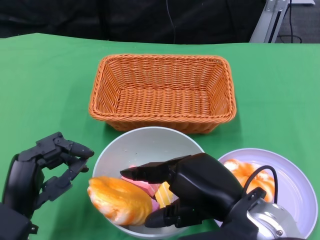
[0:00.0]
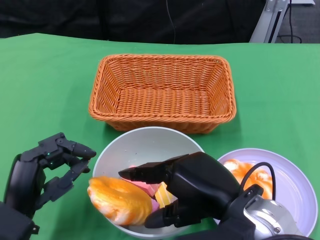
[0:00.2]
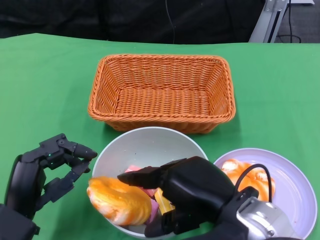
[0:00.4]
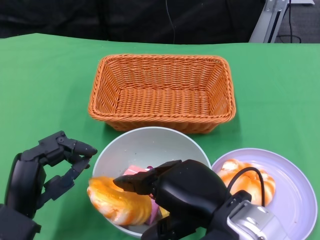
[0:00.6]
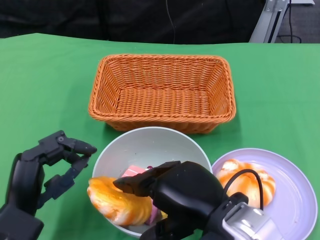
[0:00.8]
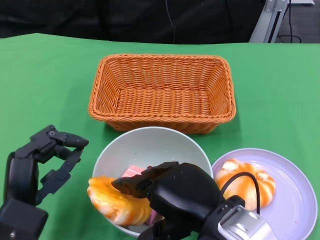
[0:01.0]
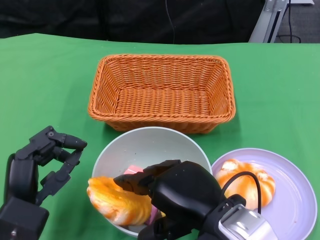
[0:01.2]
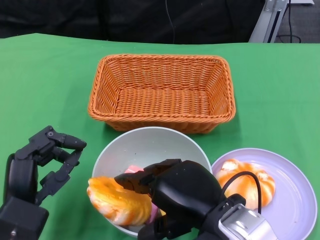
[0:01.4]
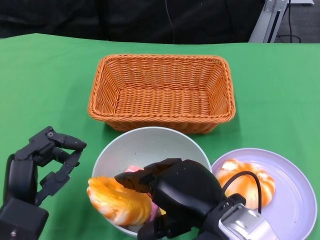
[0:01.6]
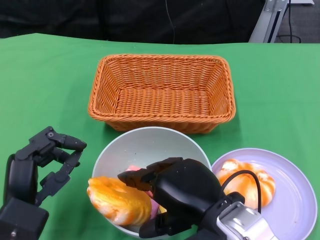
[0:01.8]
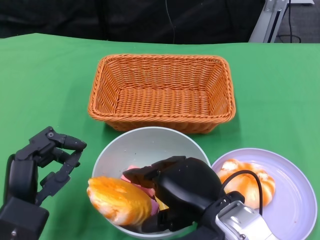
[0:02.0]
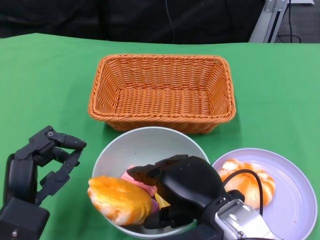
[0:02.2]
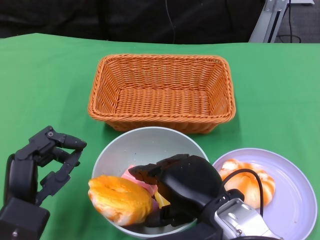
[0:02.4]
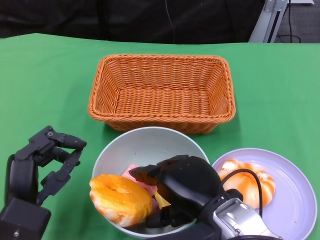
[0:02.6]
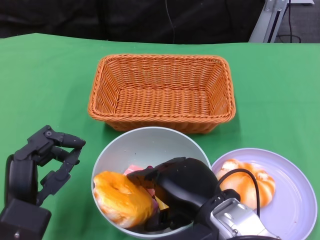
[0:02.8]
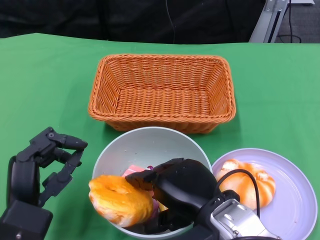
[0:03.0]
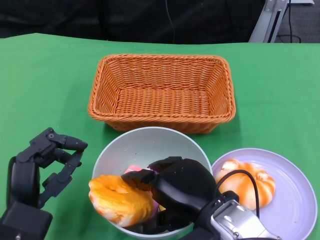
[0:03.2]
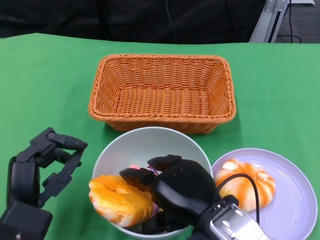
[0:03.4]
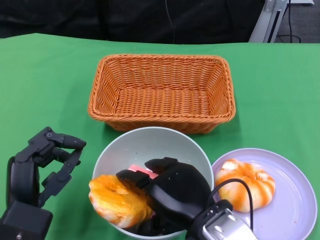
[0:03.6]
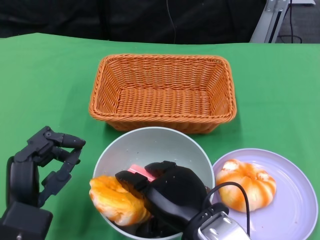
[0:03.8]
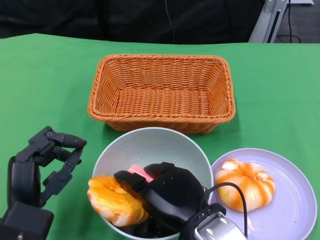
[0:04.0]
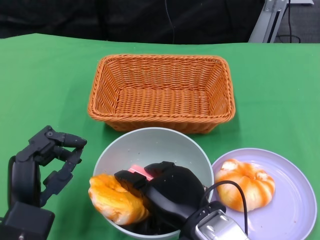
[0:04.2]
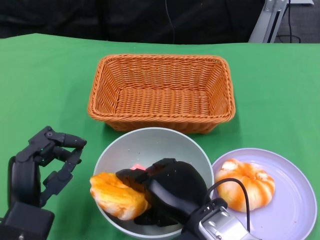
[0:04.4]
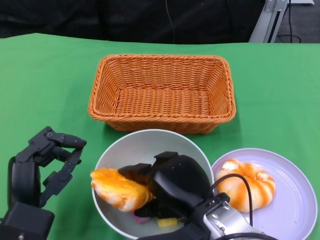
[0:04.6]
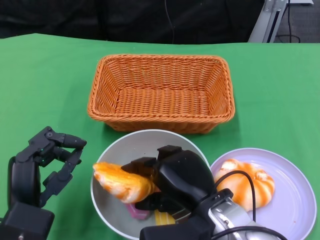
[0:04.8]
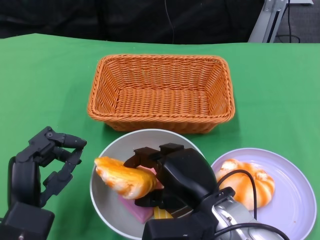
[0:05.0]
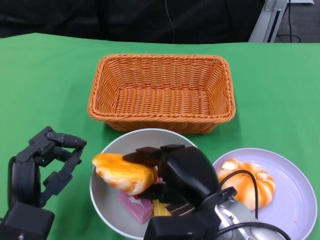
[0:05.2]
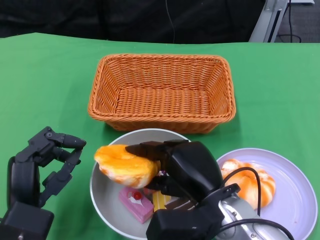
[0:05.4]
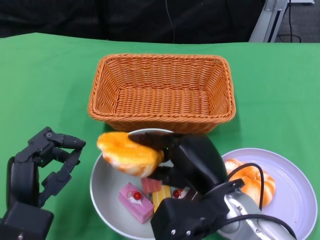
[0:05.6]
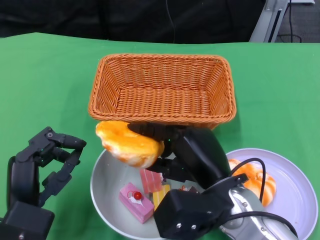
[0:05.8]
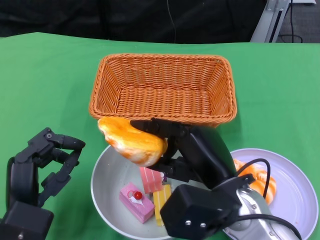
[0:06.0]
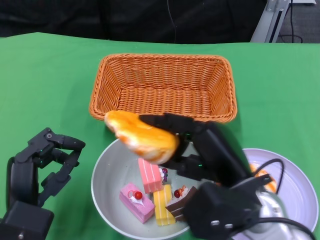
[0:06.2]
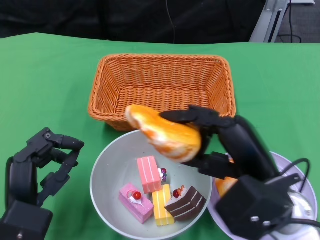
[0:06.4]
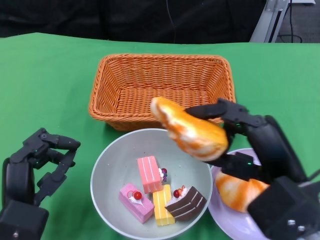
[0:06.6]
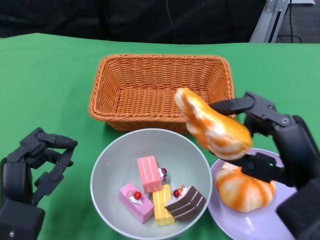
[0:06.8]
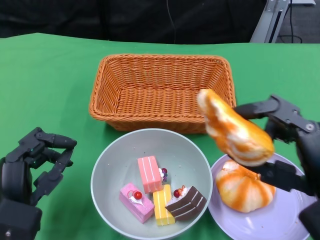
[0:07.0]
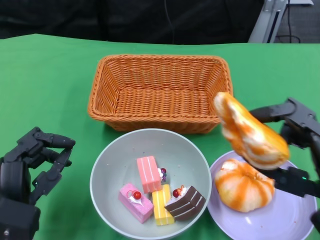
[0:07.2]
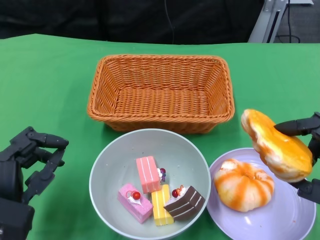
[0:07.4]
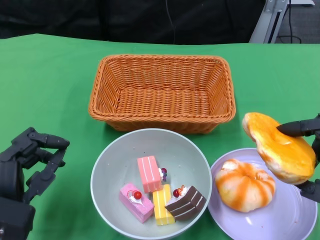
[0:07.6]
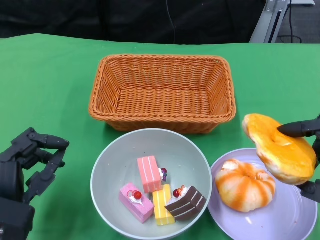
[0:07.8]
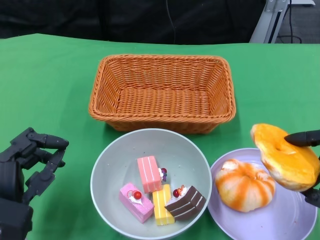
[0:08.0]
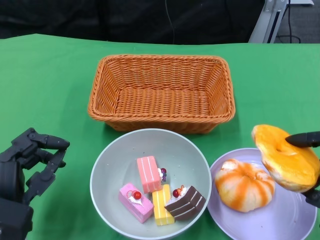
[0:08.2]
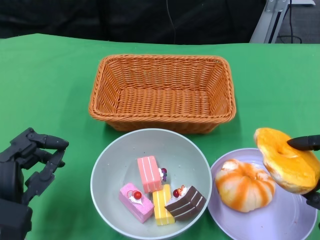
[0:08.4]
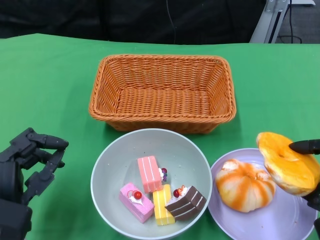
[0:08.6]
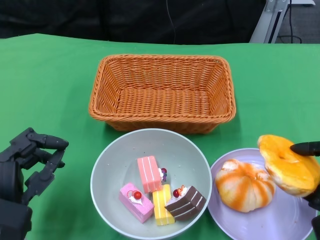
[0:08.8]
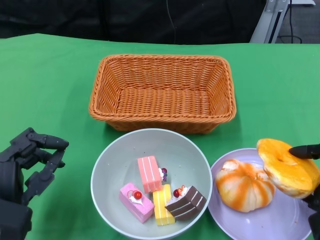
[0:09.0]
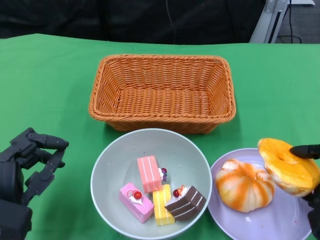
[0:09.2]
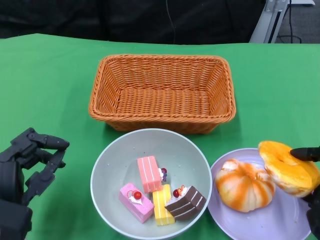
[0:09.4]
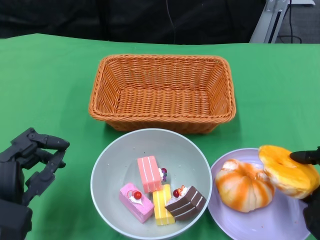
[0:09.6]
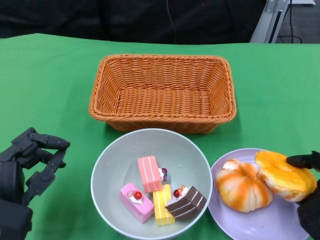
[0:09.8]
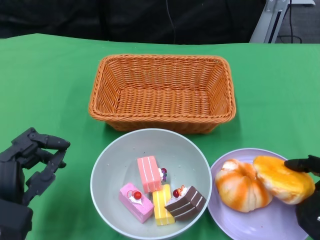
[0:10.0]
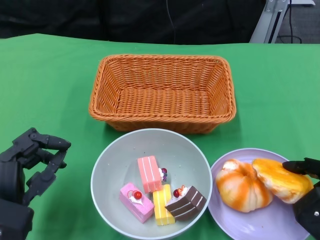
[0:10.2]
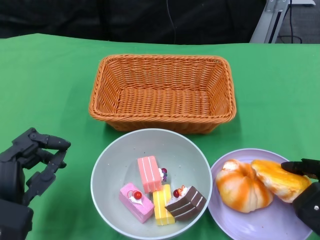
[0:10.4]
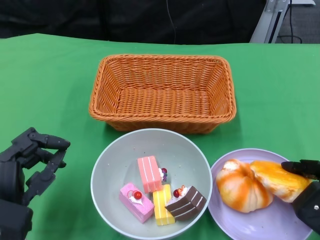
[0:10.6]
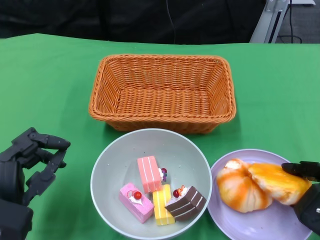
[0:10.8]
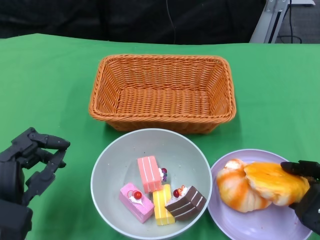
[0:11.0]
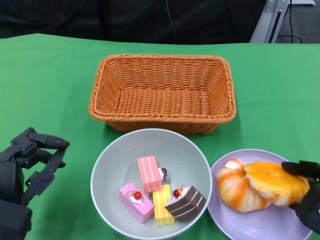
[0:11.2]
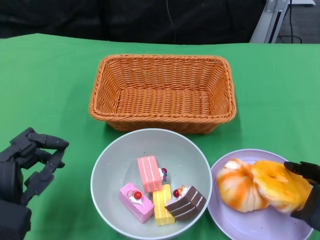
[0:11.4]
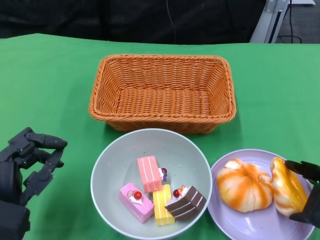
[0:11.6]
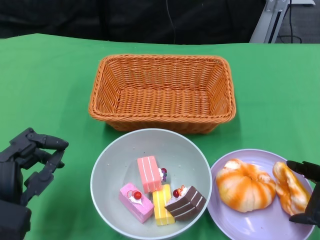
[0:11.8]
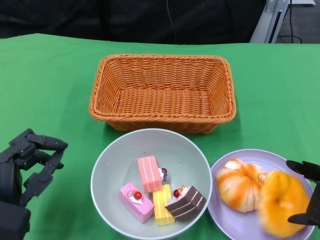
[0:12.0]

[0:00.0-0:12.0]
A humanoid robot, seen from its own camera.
0:00.0 to 0:01.6: The hands move only a little.
0:01.6 to 0:04.4: There are only small adjustments of the hands.
0:06.0 to 0:07.6: The right hand shifts approximately 15 cm to the right and backward.
0:07.6 to 0:09.0: The right hand heads downward, covering roughly 5 cm.
0:09.0 to 0:10.4: The hands move only a little.
0:10.4 to 0:12.0: The right hand travels upward by approximately 5 cm.

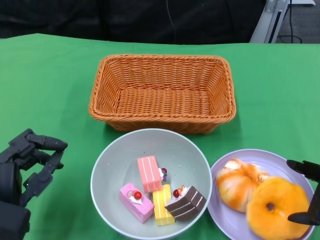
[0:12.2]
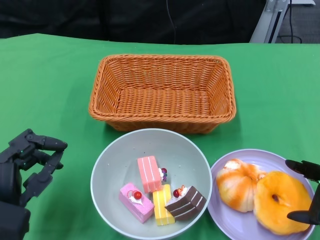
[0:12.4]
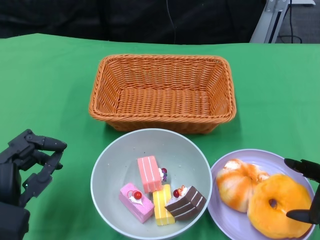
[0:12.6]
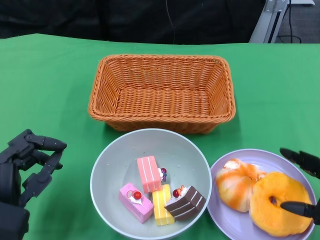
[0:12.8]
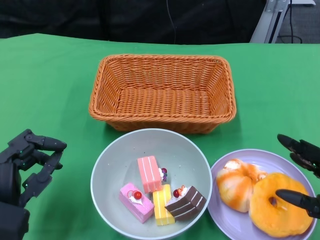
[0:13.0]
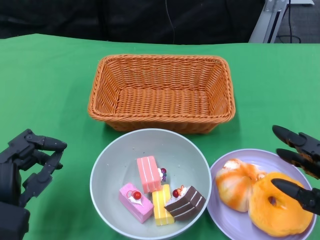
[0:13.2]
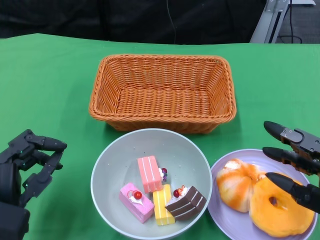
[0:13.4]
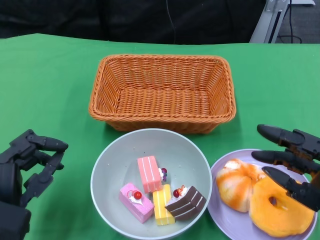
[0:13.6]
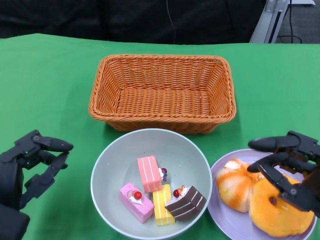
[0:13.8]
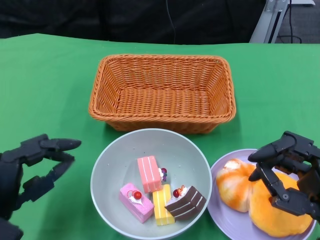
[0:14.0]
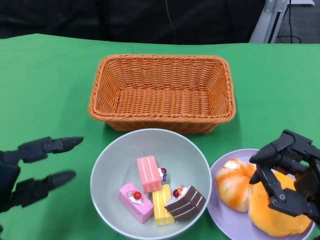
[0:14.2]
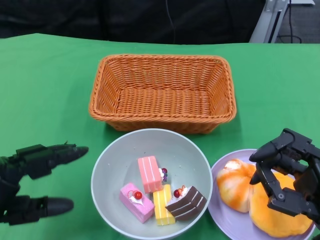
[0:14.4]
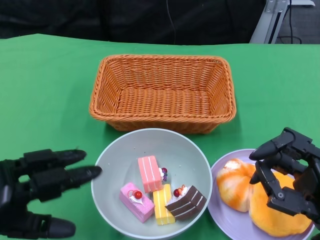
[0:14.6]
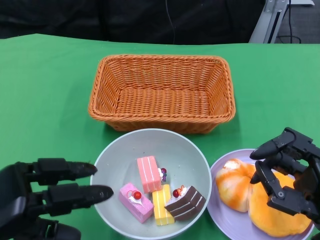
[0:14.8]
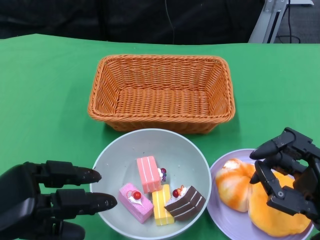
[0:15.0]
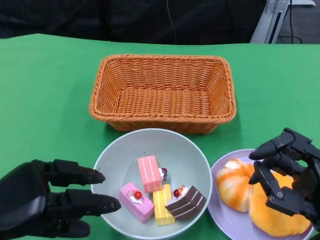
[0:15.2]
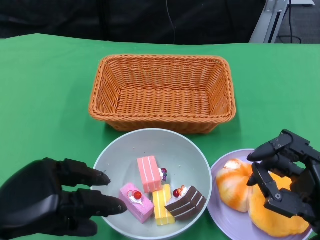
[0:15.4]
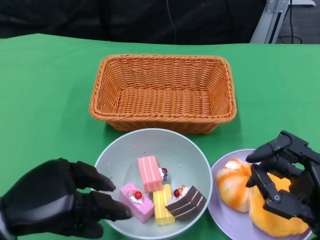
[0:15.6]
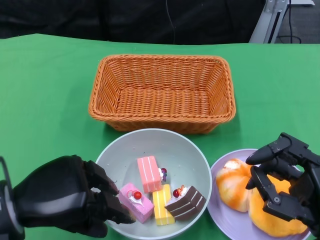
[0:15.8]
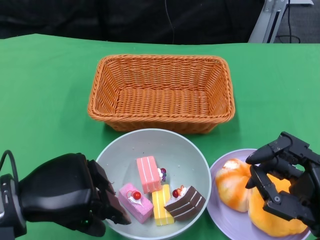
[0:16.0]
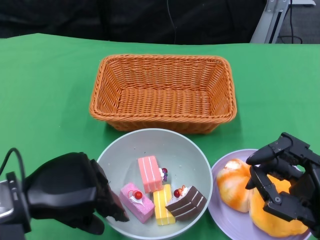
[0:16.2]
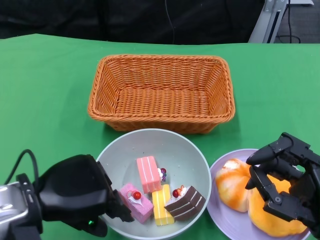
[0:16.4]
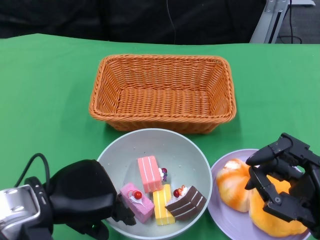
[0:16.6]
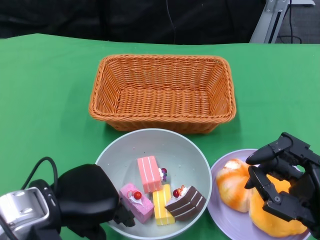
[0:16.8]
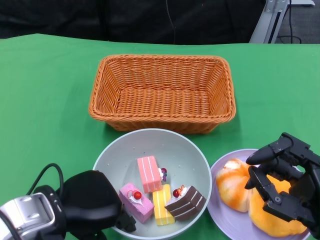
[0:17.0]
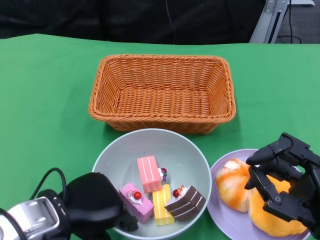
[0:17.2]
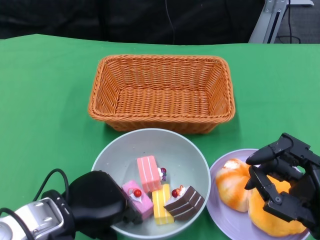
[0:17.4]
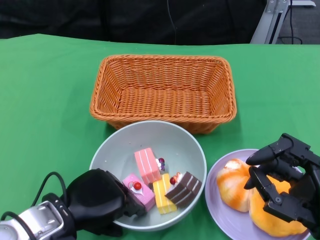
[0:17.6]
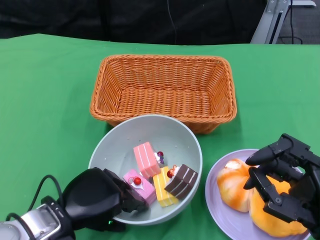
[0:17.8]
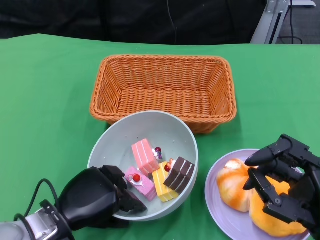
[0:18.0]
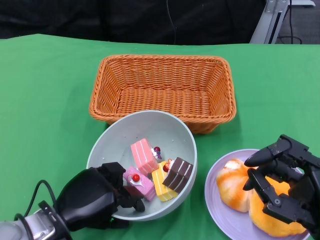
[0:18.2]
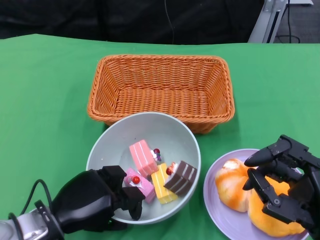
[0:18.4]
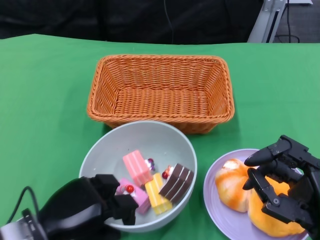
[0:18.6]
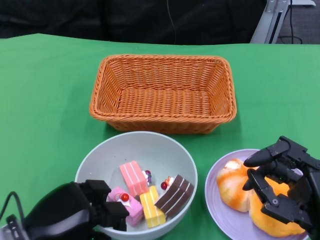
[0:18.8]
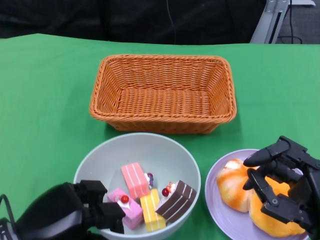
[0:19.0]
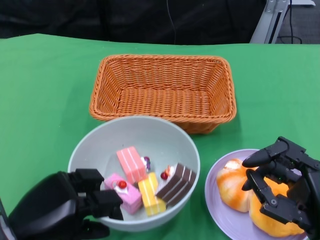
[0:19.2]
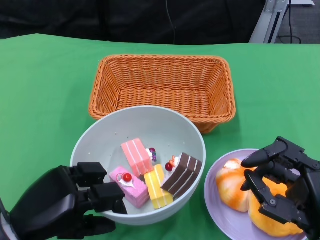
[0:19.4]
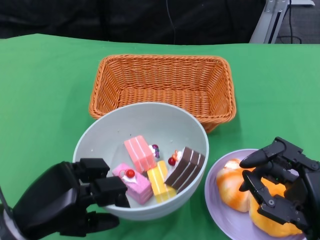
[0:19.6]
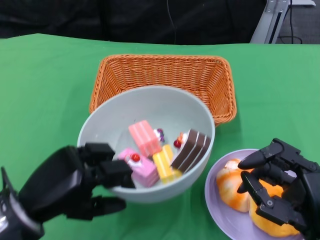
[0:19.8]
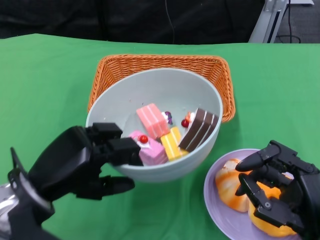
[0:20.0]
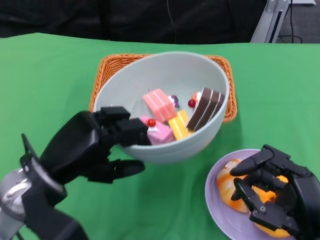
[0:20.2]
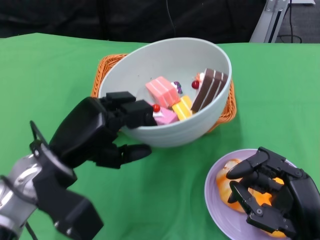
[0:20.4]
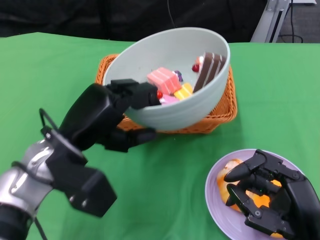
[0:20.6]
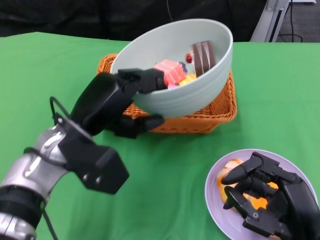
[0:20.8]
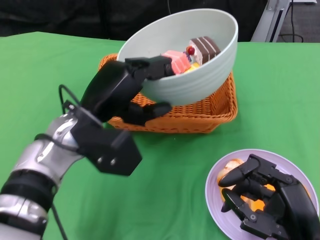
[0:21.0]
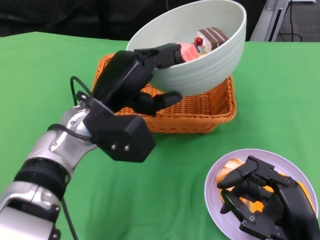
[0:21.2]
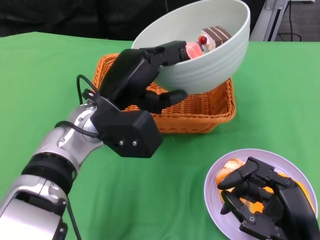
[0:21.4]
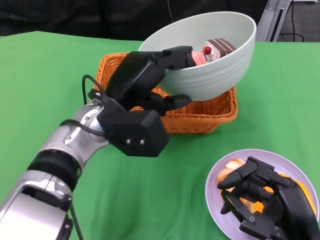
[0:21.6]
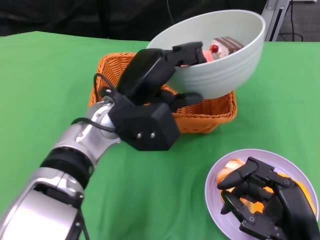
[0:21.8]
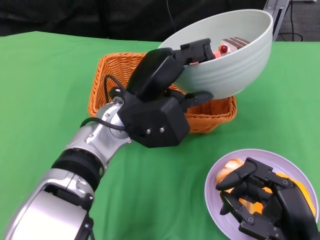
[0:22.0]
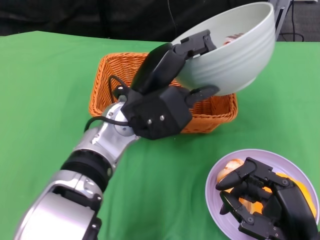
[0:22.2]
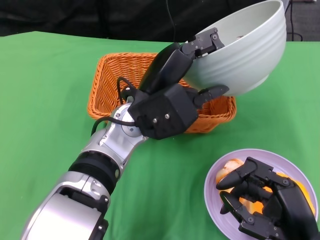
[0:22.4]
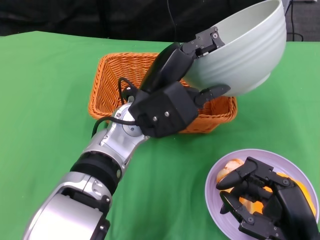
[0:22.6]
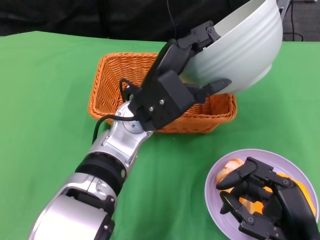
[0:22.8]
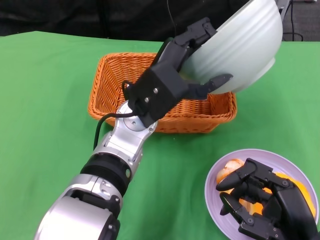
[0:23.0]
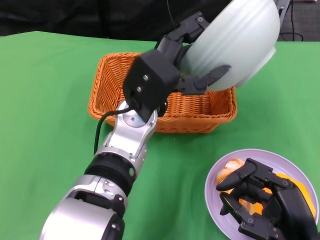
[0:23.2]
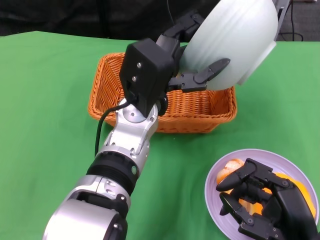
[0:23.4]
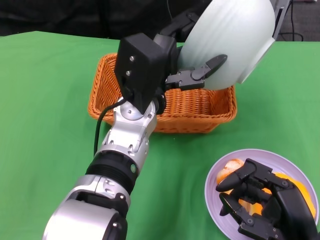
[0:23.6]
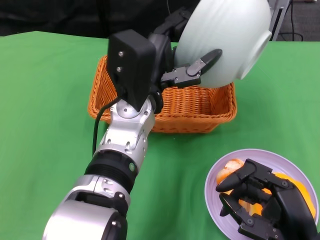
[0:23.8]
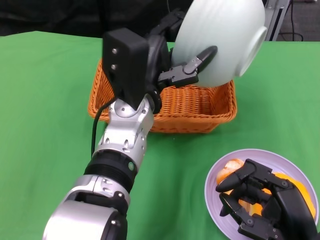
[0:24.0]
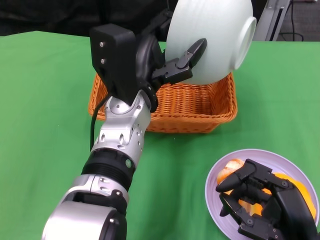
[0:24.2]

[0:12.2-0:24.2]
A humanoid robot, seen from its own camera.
Step, 0:13.0 to 0:17.6: Grasp the bowl with the left gripper.
0:12.2 to 0:13.8: The right hand moves to the left, approximately 5 cm.
0:13.8 to 0:15.2: The left hand is displaced upward by roughly 5 cm.
0:15.2 to 0:16.6: The left hand heads to the right, covering some 5 cm.
0:16.6 to 0:18.2: The left hand heads downward, covering roughly 10 cm.
0:18.2 to 0:19.8: The left hand goes some 5 cm upward.
0:19.8 to 0:21.2: The left hand heads forward, to the right and upward, covering about 15 cm.
0:21.2 to 0:22.6: The left hand moves to the right, roughly 5 cm.
